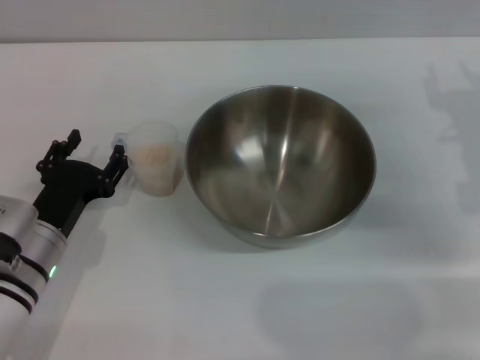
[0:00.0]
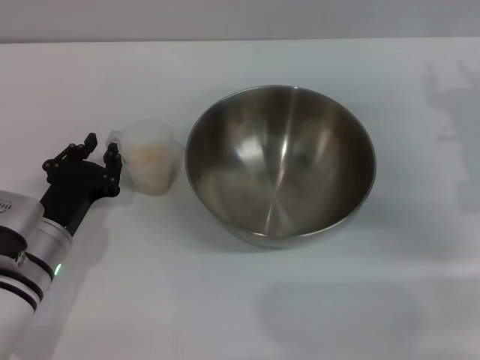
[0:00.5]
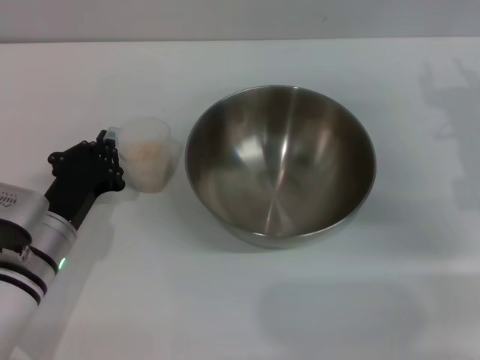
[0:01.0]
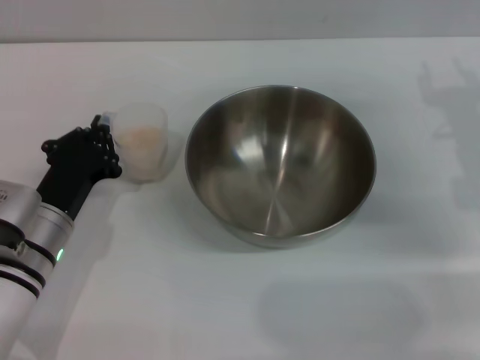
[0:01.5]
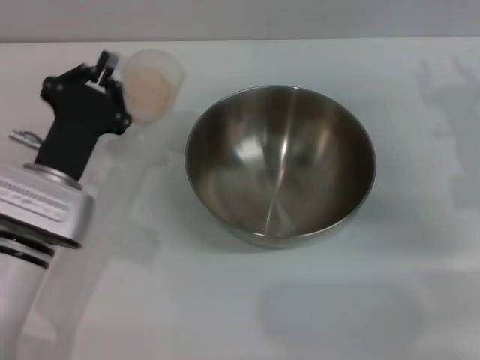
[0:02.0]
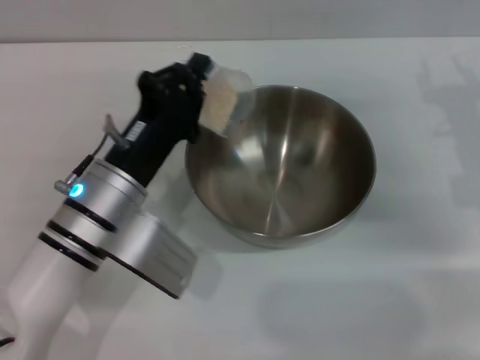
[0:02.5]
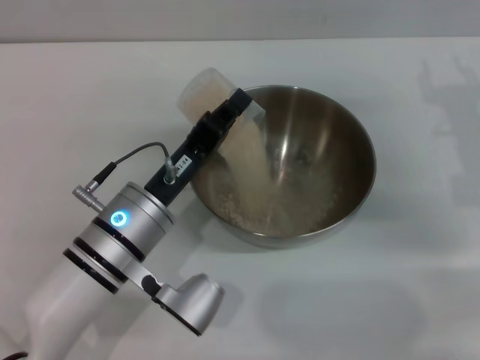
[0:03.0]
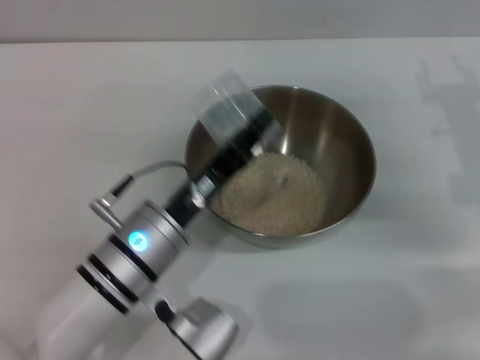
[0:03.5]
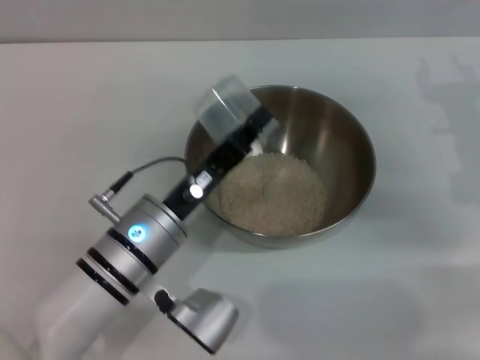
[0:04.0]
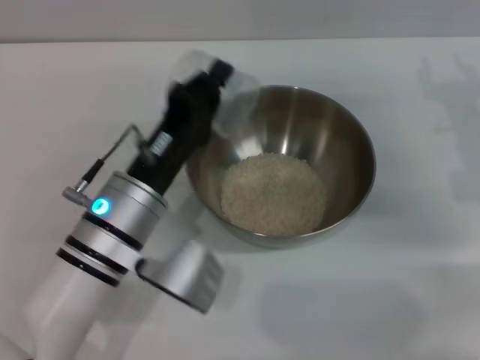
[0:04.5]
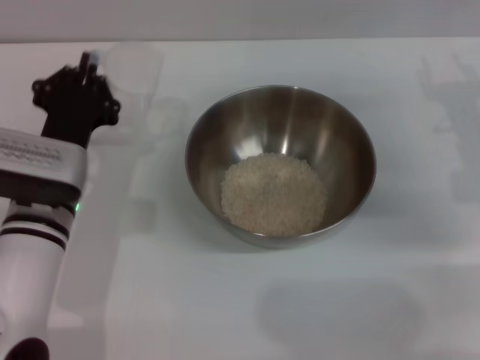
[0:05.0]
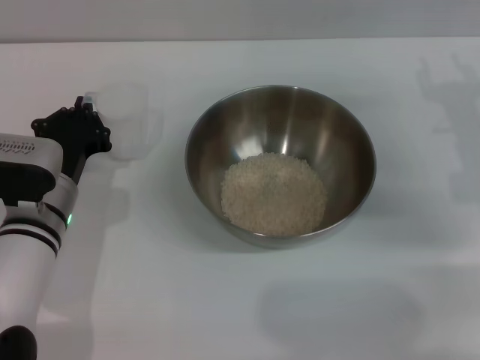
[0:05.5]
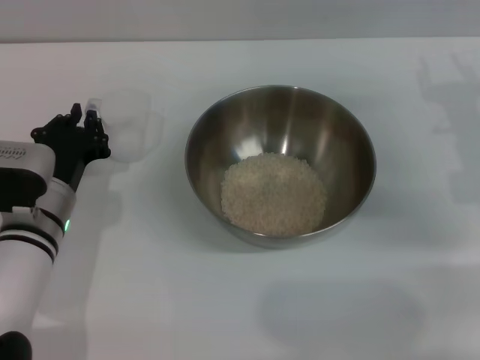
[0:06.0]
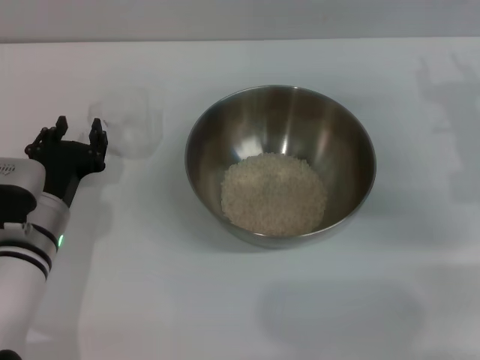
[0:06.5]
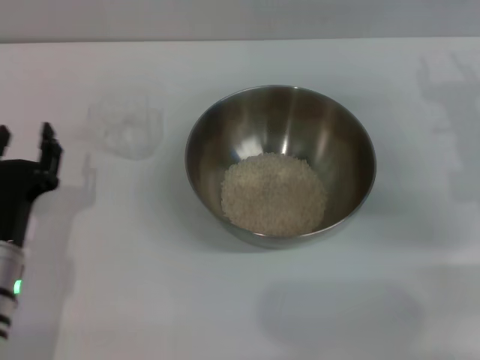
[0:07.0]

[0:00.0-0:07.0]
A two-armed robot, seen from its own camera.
Task of the whole recording: Place the bowl in the middle of the table with one hand and pour the rice from the grain cup into it with the other hand.
Step, 0:02.0 to 0:04.0: Pour the rice from the cup into the bowl with the left gripper.
Step, 0:04.5 to 0:06.5: Place the cup on the table with the left gripper.
0:00.0 to 0:02.0: The left gripper shifts about 5 cm upward, and closes up.
0:02.0 to 0:03.5: The left gripper shifts approximately 10 cm to the right.
0:03.5 to 0:05.0: The left gripper is displaced to the left by some 5 cm.
0:05.0 to 0:07.0: The left gripper heads backward, covering roughly 5 cm, and opens.
